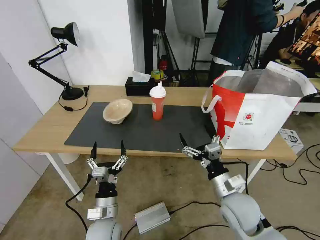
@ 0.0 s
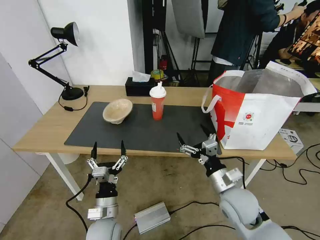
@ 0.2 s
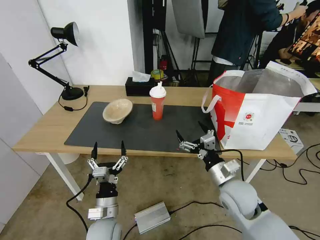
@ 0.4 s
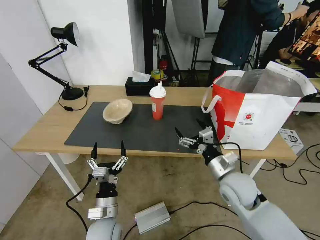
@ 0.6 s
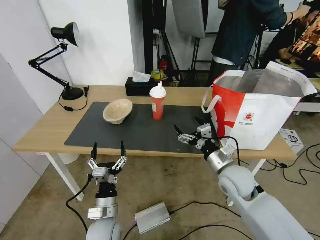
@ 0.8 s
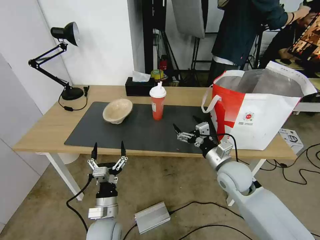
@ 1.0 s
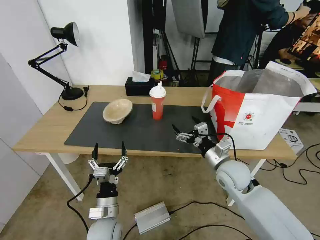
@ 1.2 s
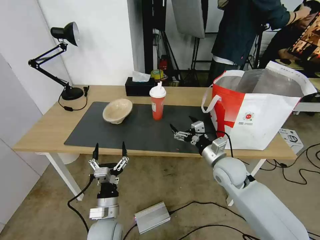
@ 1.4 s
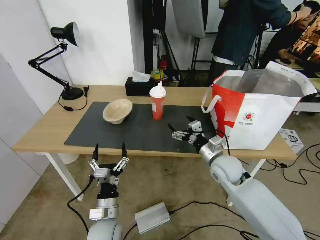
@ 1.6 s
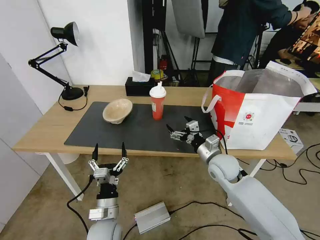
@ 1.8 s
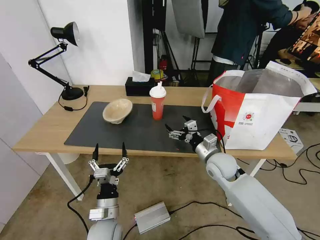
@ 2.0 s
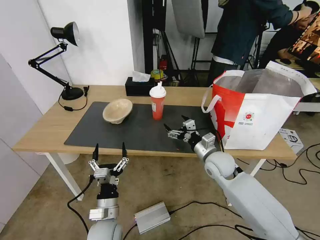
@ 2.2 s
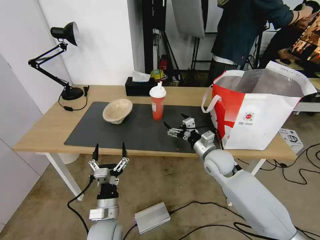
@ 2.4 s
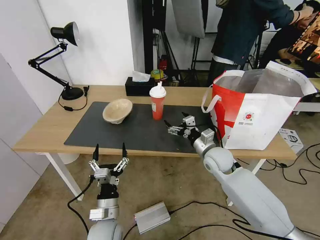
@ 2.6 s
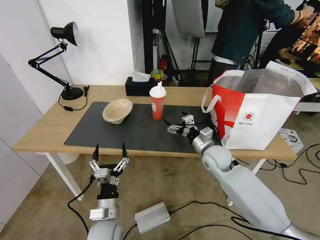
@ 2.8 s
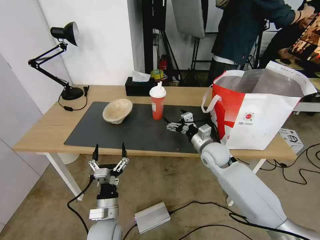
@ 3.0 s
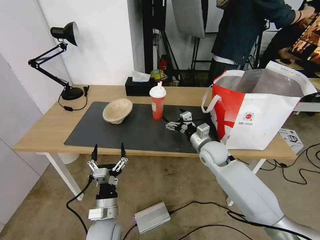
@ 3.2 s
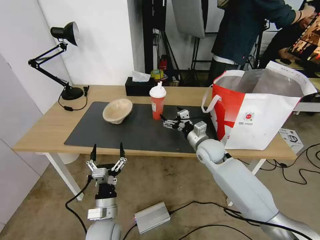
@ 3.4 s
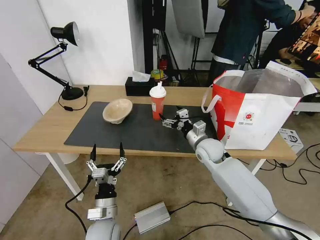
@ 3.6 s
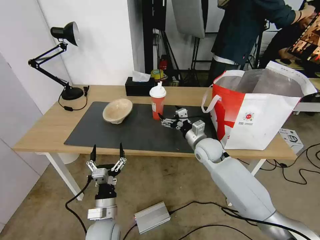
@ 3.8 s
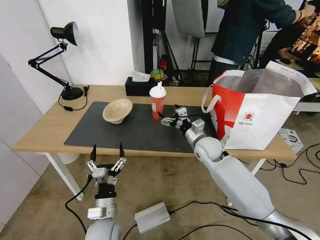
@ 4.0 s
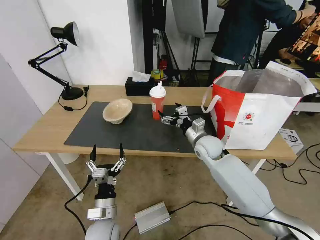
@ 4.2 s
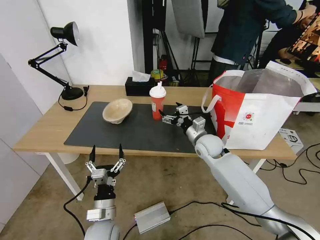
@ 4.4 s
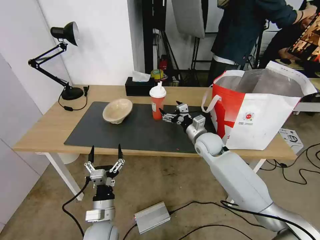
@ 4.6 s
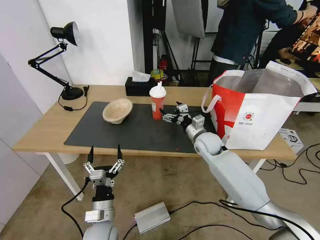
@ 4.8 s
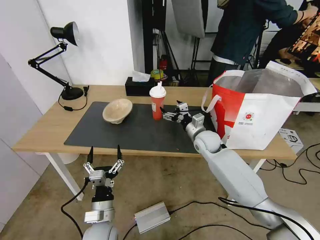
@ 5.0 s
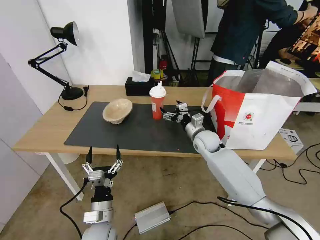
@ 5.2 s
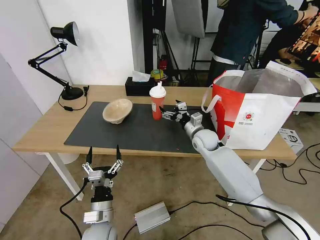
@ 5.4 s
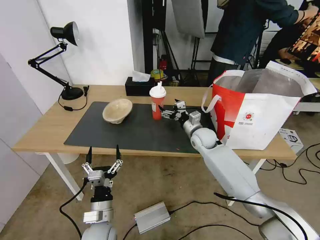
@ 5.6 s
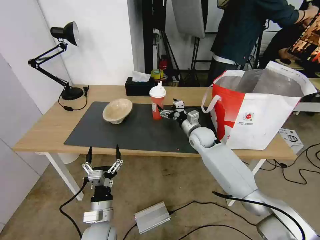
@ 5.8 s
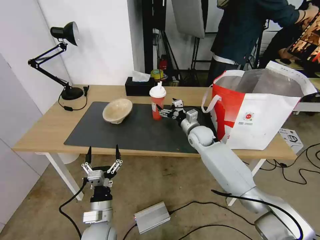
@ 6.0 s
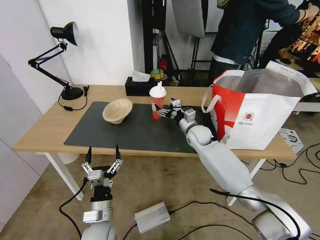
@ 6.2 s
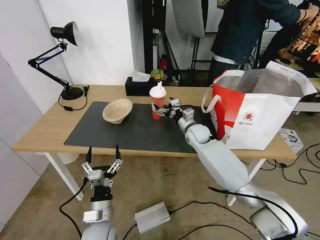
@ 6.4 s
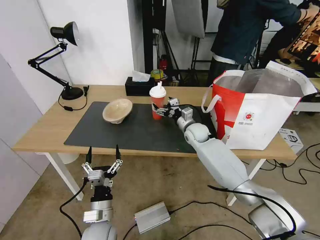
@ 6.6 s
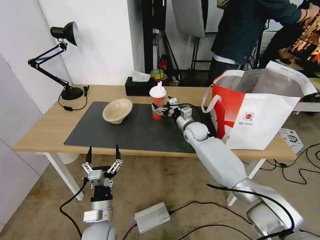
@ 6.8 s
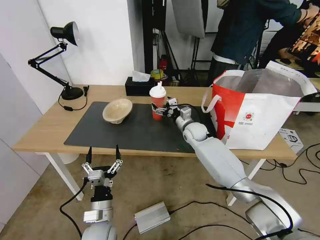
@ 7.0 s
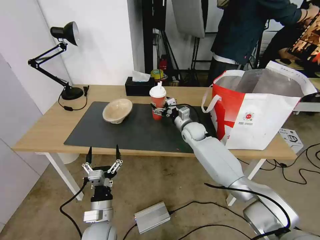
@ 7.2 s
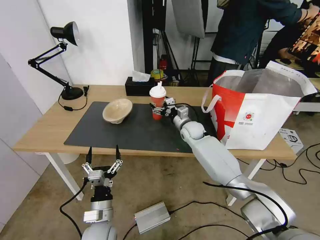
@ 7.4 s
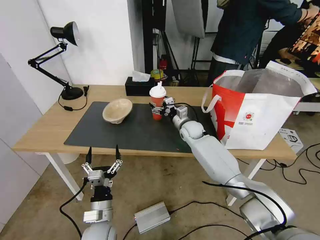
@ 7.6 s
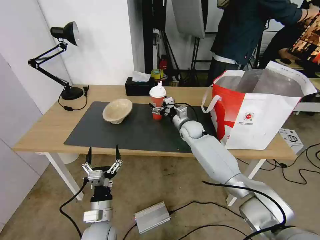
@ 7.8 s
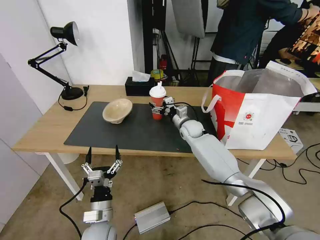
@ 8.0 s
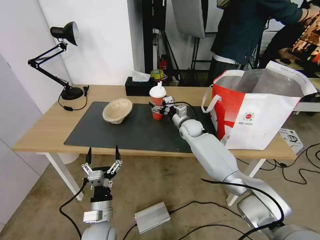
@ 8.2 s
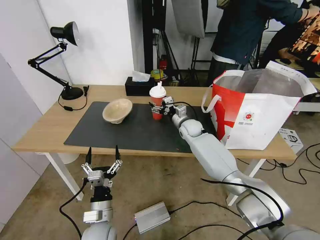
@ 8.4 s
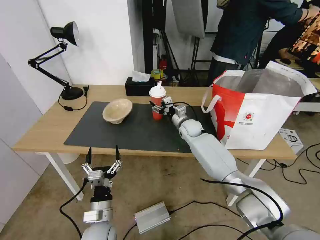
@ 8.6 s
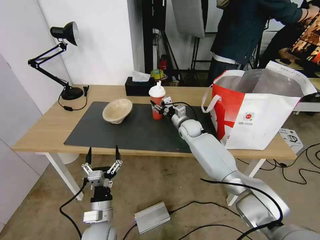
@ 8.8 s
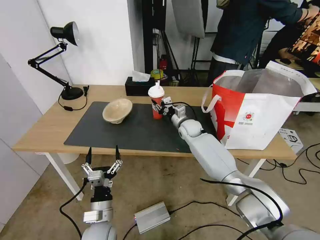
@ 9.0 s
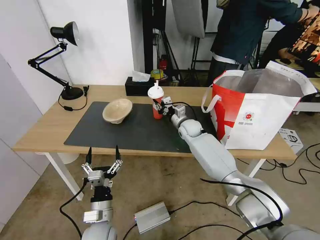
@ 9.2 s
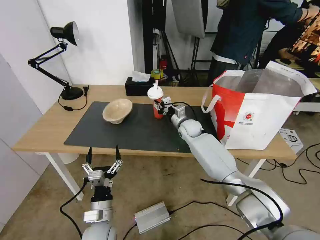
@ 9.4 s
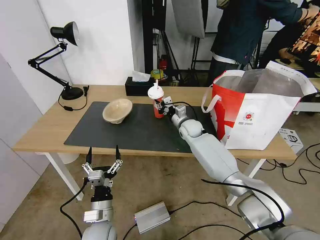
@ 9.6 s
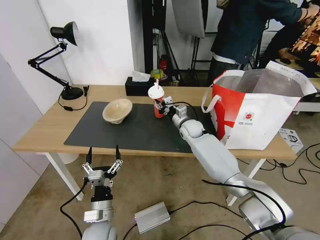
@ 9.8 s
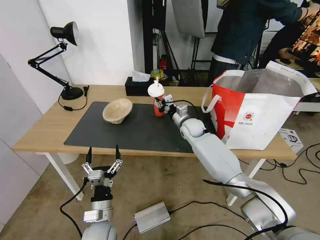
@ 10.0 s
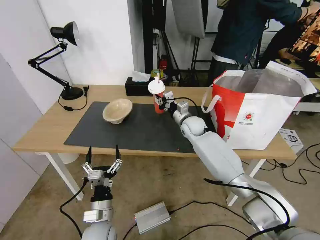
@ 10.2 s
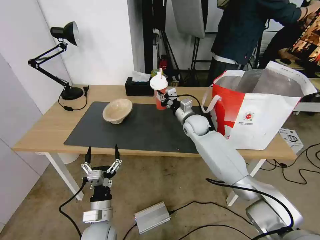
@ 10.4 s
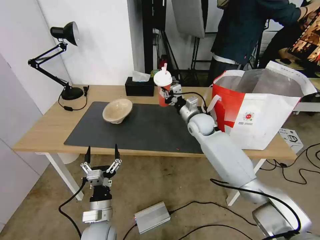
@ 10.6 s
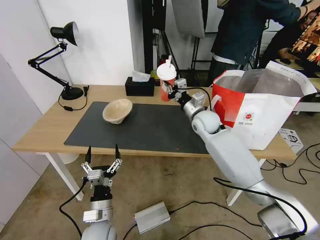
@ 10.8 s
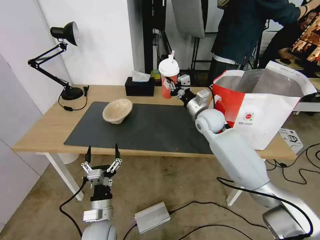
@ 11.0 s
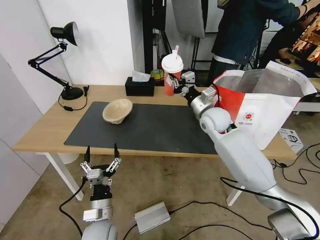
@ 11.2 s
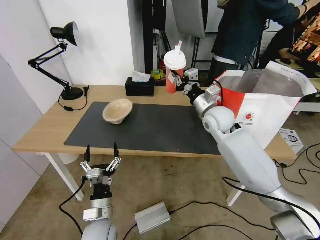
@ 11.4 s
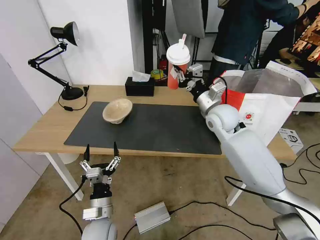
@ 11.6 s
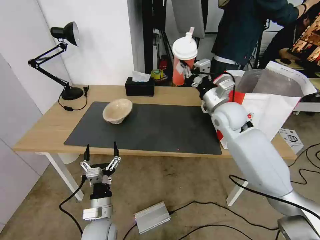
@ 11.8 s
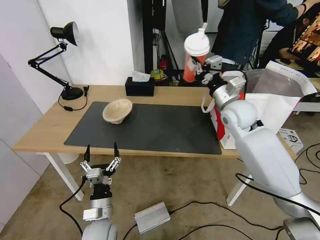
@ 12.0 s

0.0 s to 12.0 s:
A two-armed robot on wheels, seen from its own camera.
Task of the whole recording: Pick up the trash from the table and place it into the takeout bag.
0.0 to 1.6 s: The right gripper heads forward, covering some 15 cm.
1.6 to 3.0 s: The right gripper moves forward, about 5 cm.
3.0 to 4.4 s: There are only small adjustments of the grippers.
4.4 to 6.0 s: The right gripper travels forward by about 5 cm.
6.0 to 7.6 s: The grippers make only small movements.
7.6 to 9.0 s: The right gripper closes.
9.0 to 10.4 s: The right gripper shifts by about 5 cm.
10.4 to 12.0 s: The right gripper goes roughly 20 cm upward, to the right and backward.

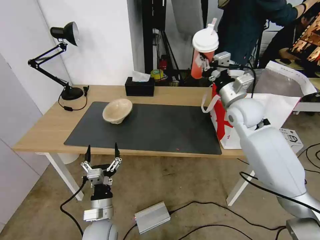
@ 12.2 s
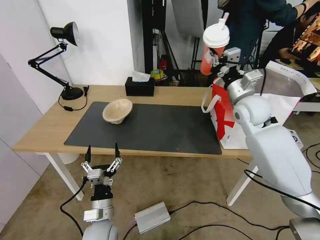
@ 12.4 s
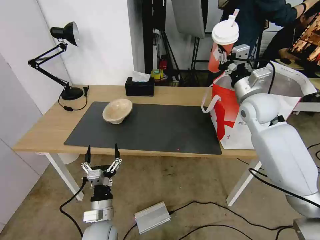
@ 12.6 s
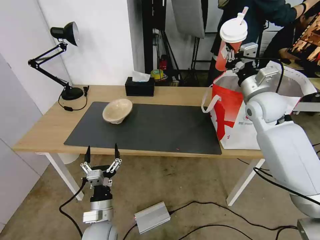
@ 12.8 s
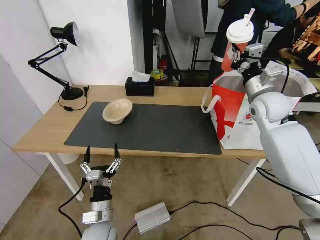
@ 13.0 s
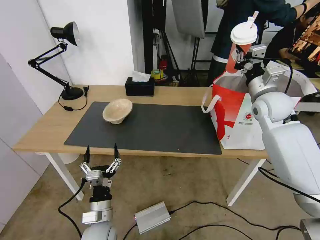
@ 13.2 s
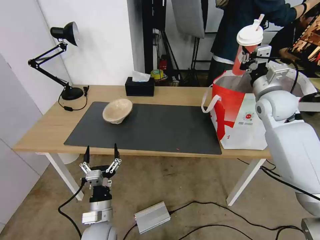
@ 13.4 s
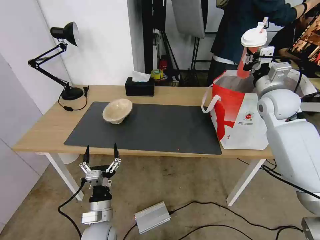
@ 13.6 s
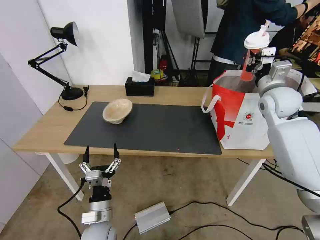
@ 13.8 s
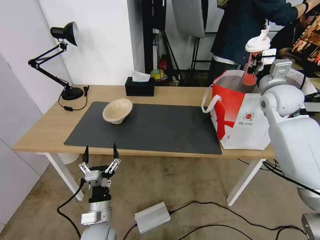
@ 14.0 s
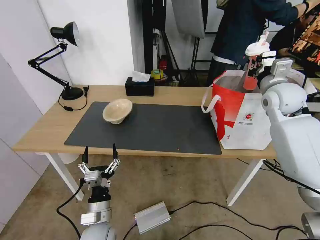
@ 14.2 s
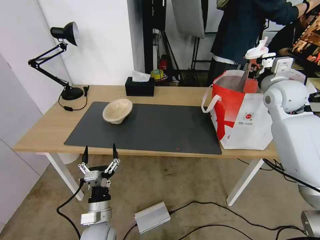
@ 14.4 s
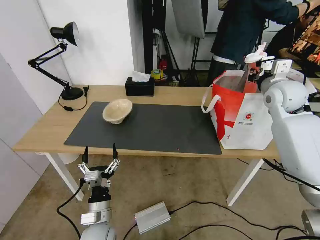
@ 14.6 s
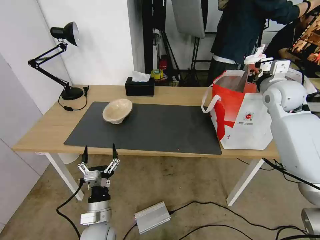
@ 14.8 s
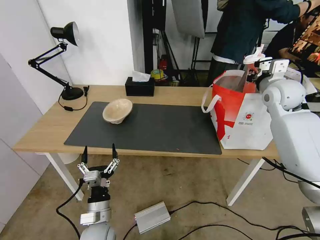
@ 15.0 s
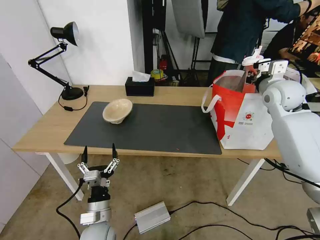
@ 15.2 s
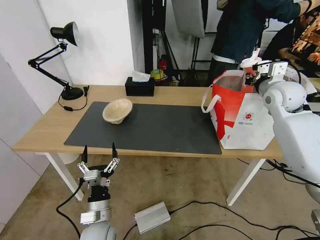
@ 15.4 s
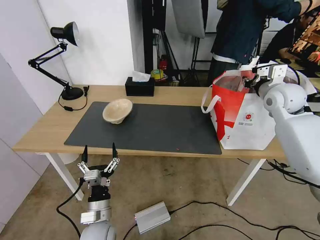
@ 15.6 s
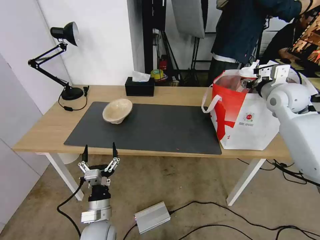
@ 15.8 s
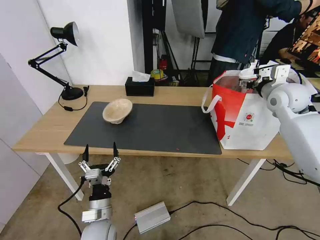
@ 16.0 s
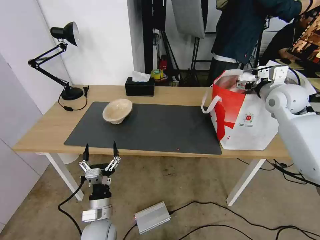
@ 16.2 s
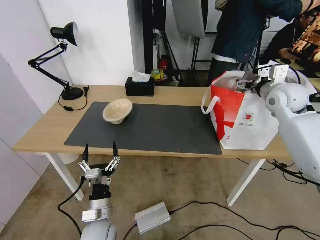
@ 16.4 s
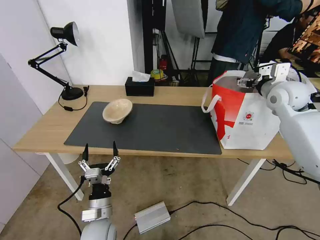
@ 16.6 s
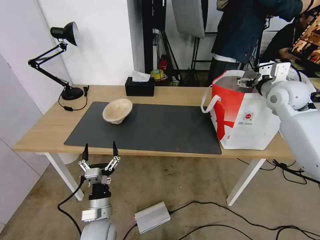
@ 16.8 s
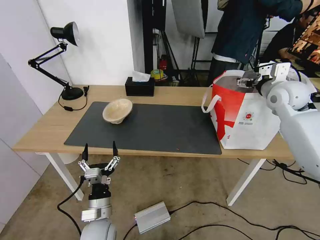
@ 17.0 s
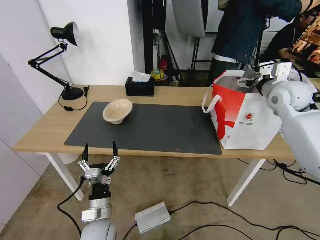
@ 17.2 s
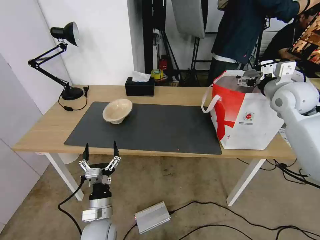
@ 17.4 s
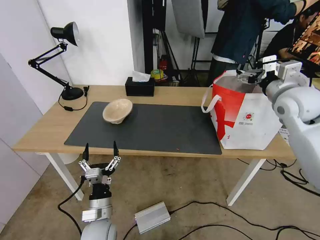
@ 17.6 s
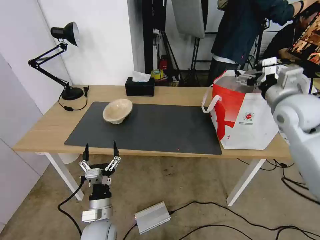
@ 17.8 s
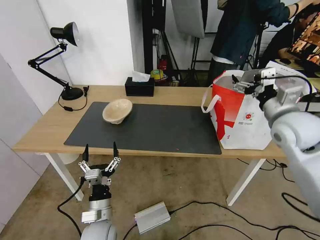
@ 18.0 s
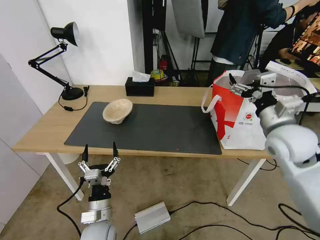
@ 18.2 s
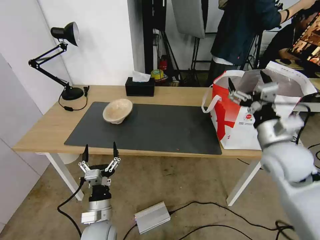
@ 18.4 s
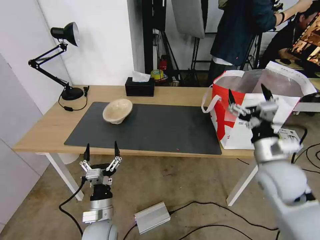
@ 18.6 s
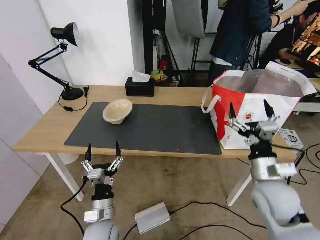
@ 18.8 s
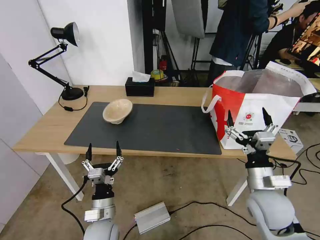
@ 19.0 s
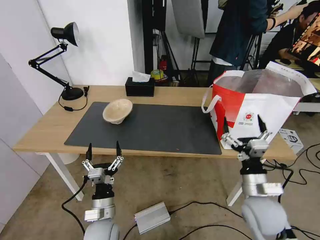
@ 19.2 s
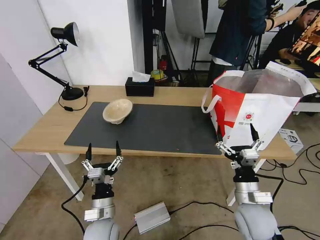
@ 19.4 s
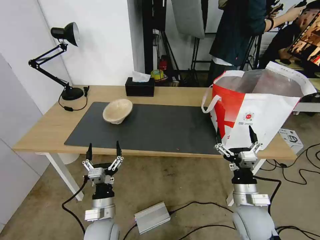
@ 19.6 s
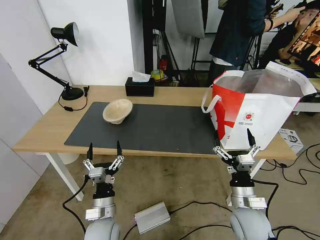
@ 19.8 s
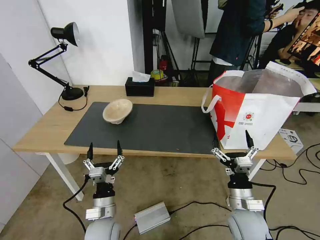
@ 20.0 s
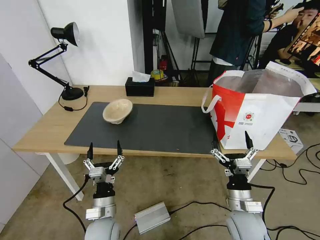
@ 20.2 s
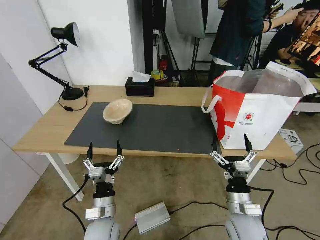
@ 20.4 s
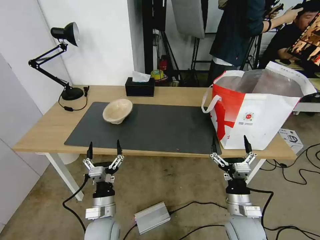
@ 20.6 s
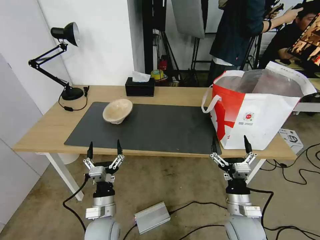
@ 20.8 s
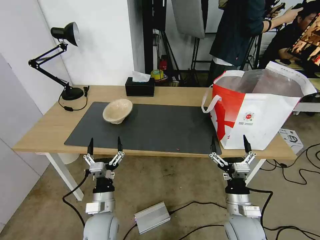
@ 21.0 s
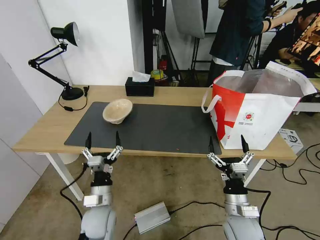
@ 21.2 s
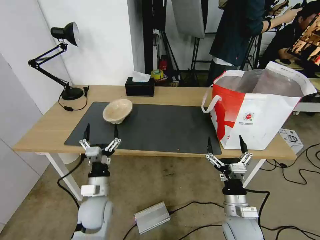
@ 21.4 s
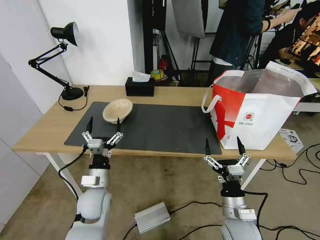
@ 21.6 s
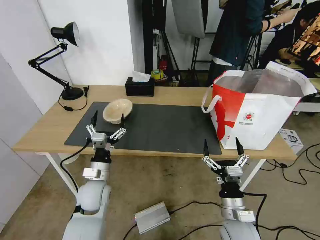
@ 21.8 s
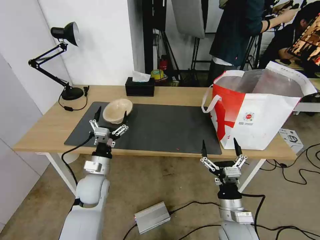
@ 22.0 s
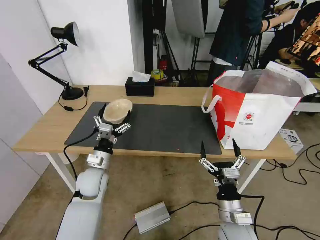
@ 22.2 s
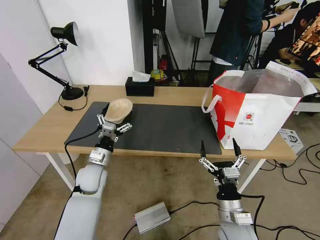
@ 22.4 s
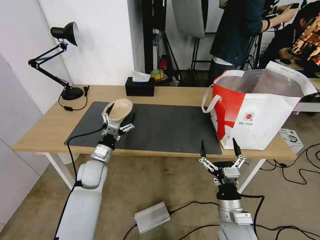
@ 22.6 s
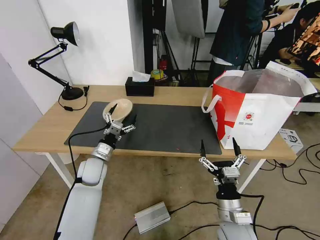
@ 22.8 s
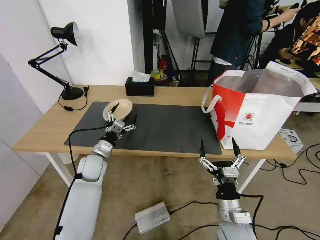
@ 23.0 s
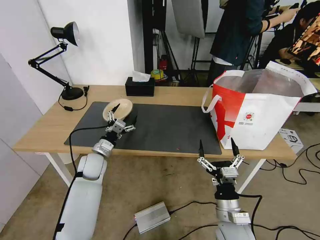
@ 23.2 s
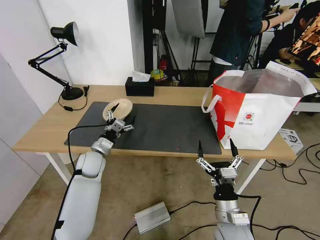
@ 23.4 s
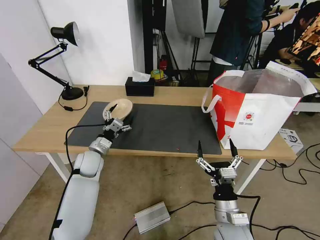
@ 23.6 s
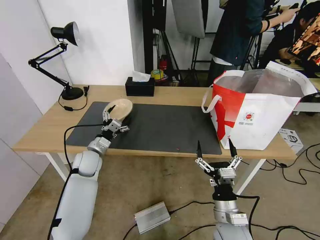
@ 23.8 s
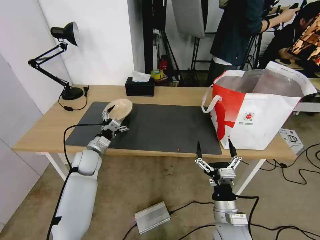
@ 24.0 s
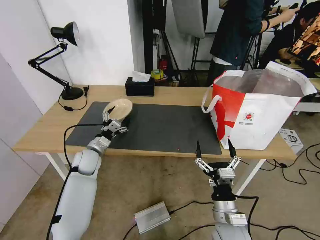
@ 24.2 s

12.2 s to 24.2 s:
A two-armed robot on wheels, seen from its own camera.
Task of the whole recording: Pick up the trash from the table and place it into the takeout bag.
12.2 to 13.8 s: The right gripper shifts roughly 10 cm to the right.
15.2 to 16.6 s: The right gripper opens its fingers.
16.6 to 18.2 s: The right gripper is displaced backward and to the left by about 15 cm.
18.2 to 19.8 s: The right gripper travels downward and backward by some 25 cm.
19.8 to 21.2 s: The grippers move only a little.
21.2 to 22.6 s: The left gripper travels forward by approximately 15 cm.
22.6 to 24.2 s: The left gripper shifts some 5 cm forward.
